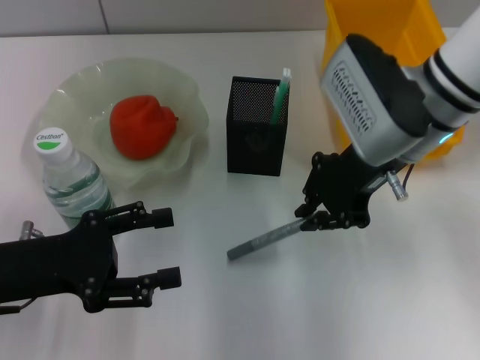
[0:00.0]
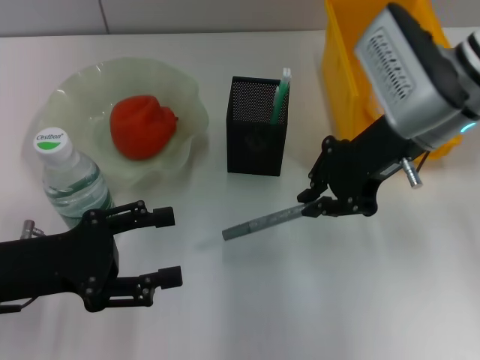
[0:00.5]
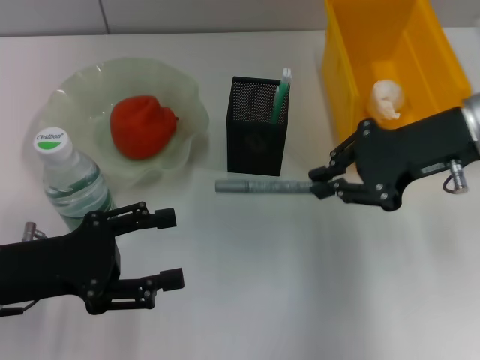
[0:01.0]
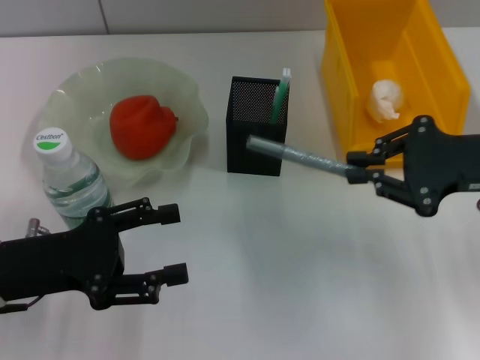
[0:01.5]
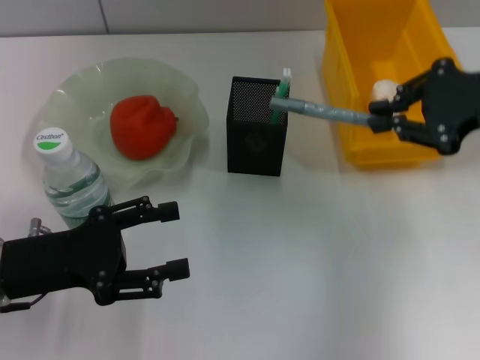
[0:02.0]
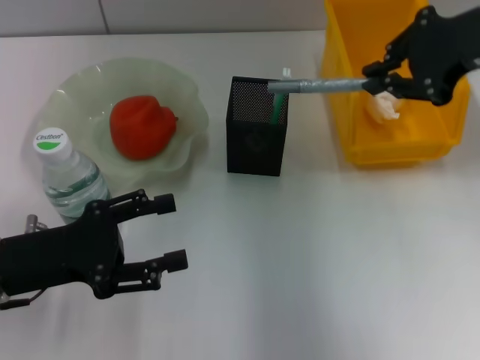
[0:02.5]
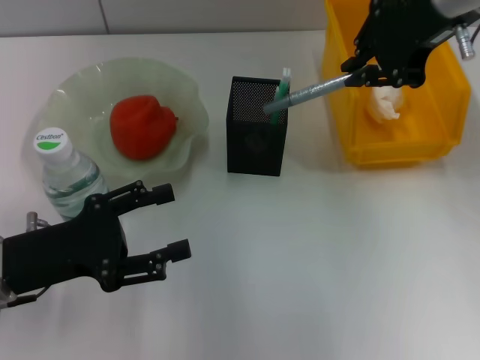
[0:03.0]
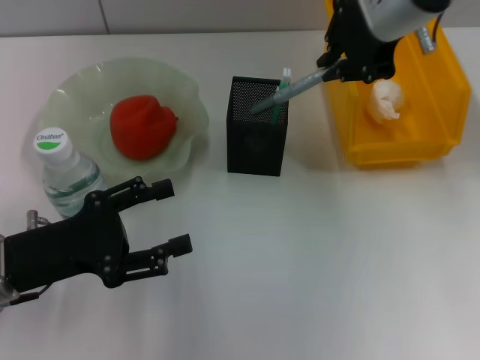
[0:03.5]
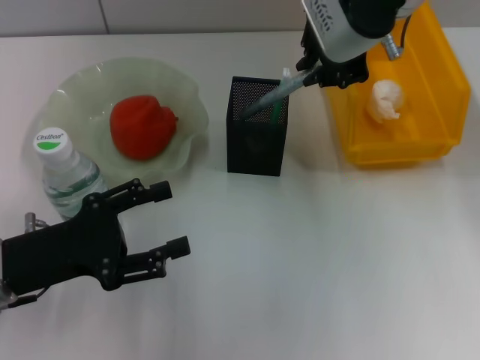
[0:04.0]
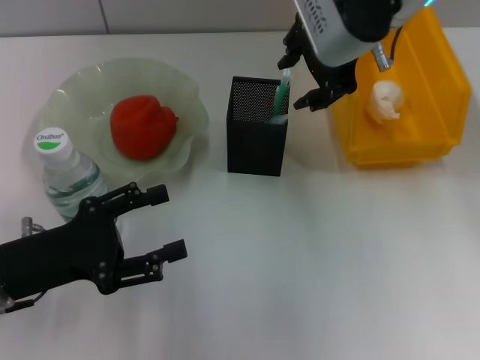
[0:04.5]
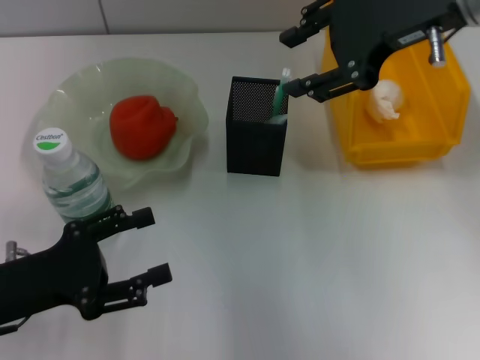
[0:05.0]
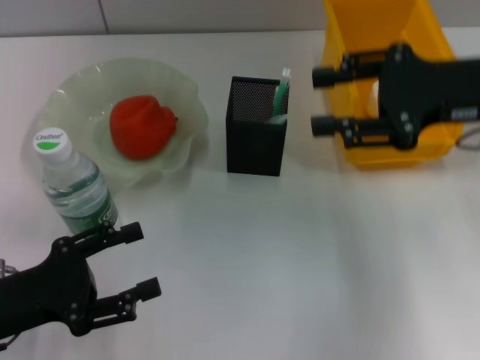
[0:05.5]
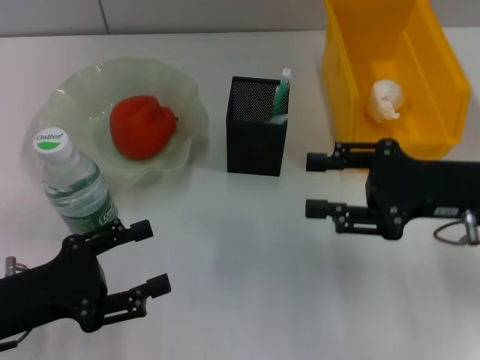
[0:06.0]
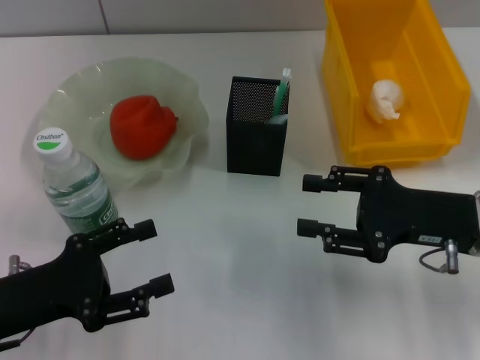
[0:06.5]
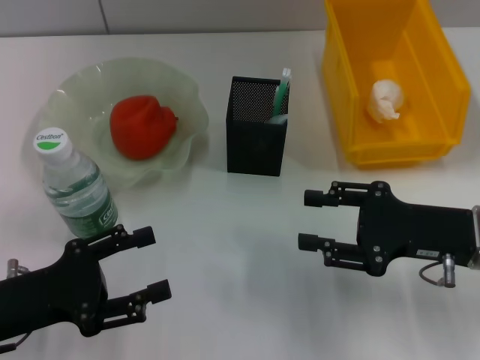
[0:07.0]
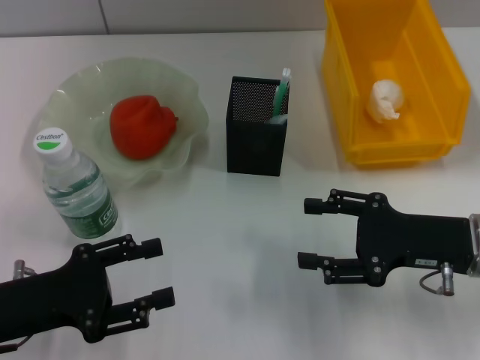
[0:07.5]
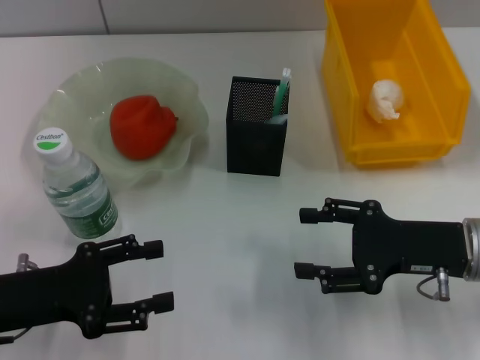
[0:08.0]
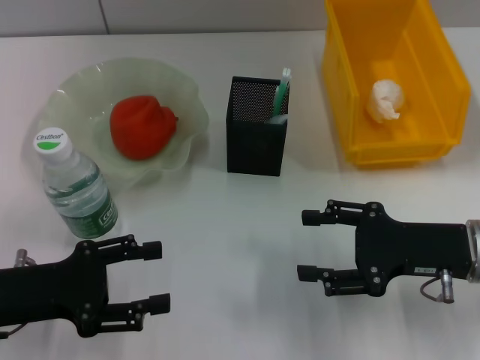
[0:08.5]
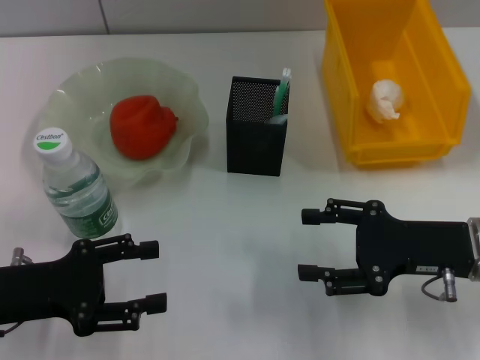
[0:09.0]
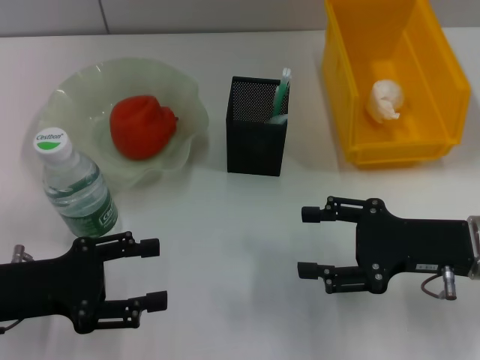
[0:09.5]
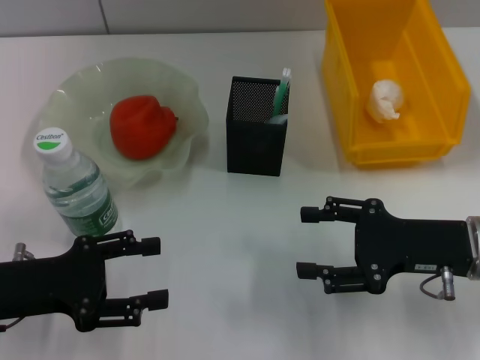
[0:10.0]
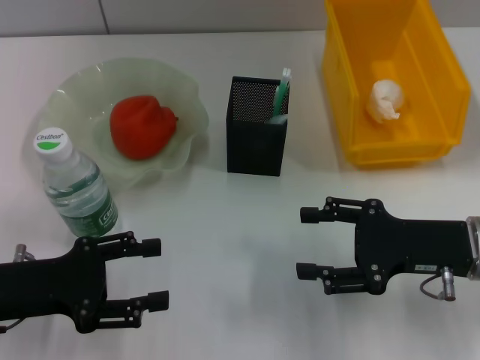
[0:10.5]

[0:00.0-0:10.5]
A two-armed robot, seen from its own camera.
Step, 0:00.0 to 0:04.5: Place the gray glue into the pen holder with the right hand.
0:00.0 to 0:02.0: The right gripper heads to the right, covering about 15 cm.
0:02.0 to 0:04.0: The right gripper shifts approximately 15 cm to the left.
0:04.0 to 0:06.5: The right gripper travels downward, to the right and backward by about 25 cm, and opens its fingers.
0:06.5 to 0:08.5: There are only small adjustments of the grippers.
0:08.5 to 0:10.5: Both grippers stay put.
